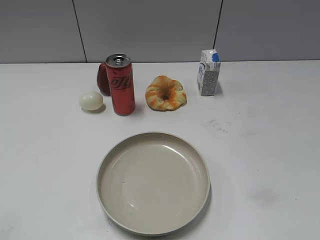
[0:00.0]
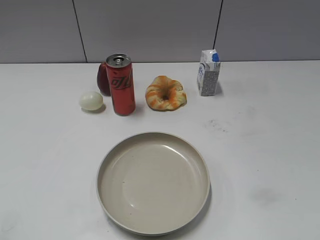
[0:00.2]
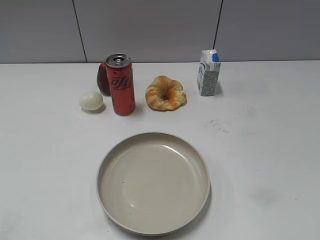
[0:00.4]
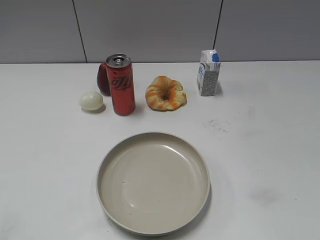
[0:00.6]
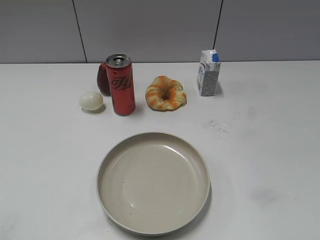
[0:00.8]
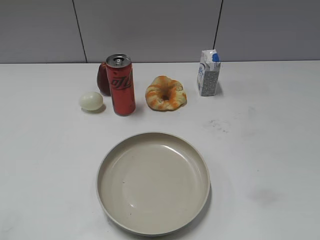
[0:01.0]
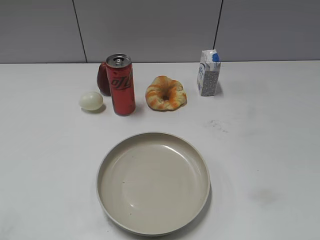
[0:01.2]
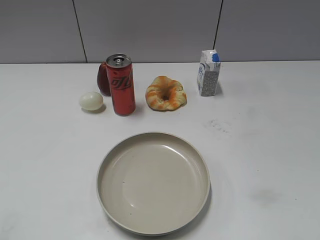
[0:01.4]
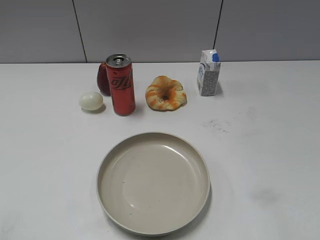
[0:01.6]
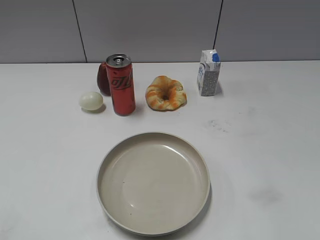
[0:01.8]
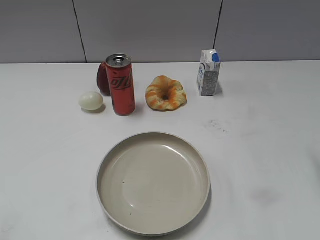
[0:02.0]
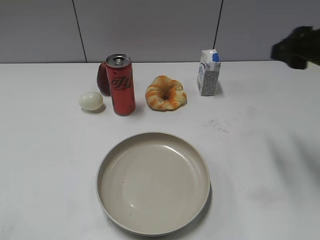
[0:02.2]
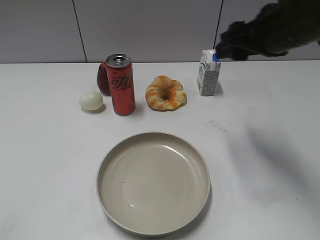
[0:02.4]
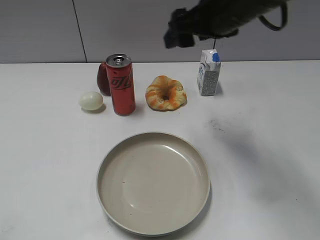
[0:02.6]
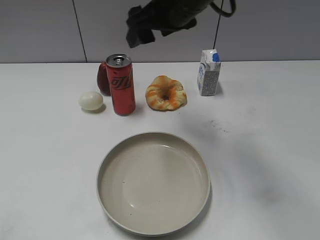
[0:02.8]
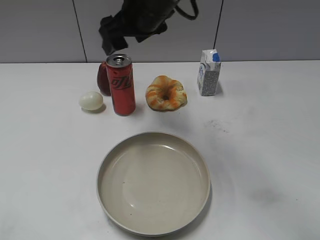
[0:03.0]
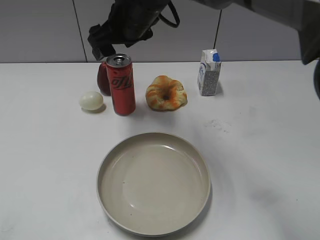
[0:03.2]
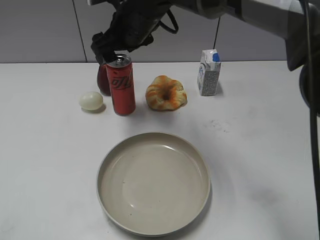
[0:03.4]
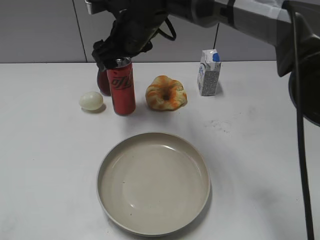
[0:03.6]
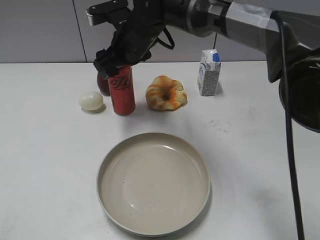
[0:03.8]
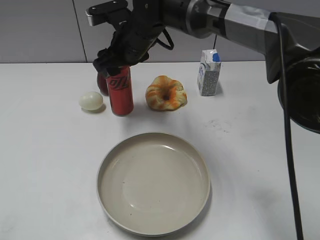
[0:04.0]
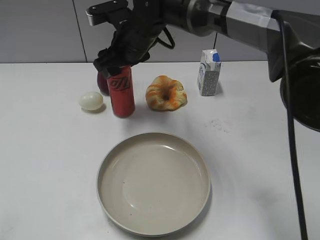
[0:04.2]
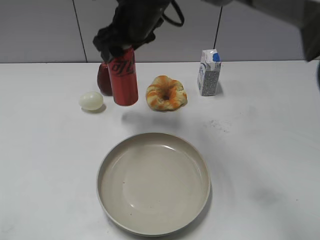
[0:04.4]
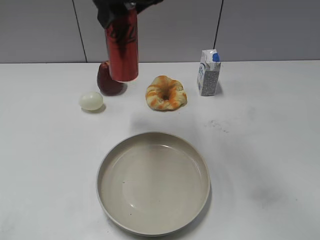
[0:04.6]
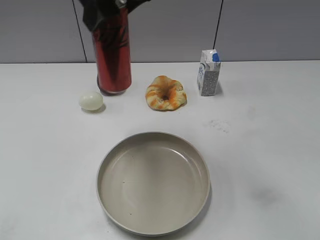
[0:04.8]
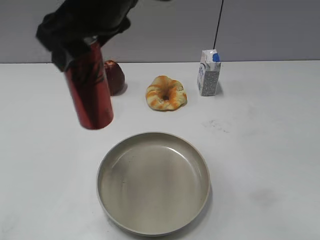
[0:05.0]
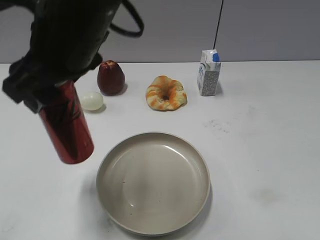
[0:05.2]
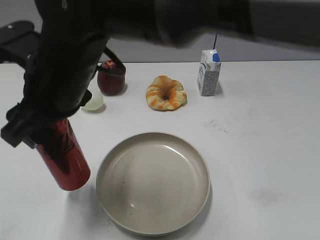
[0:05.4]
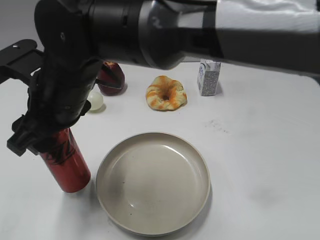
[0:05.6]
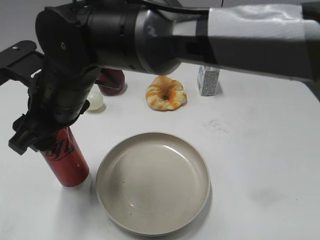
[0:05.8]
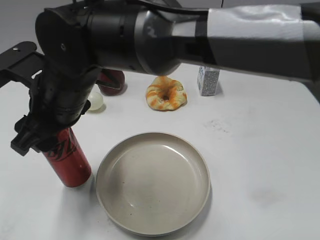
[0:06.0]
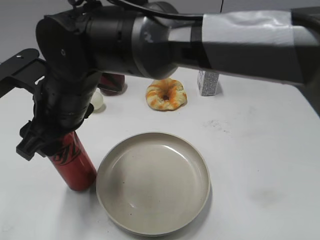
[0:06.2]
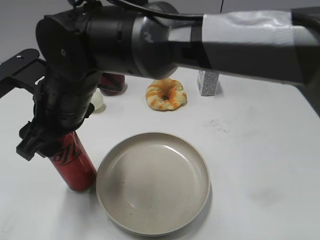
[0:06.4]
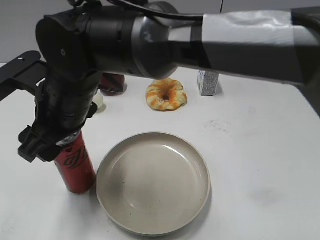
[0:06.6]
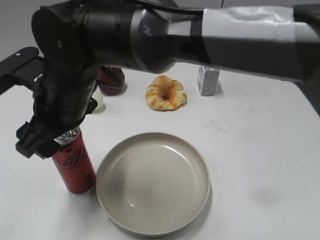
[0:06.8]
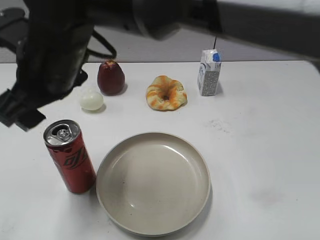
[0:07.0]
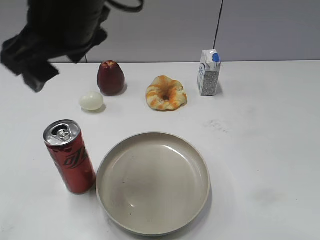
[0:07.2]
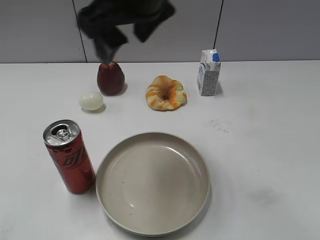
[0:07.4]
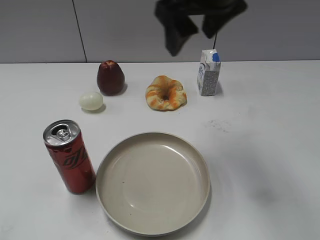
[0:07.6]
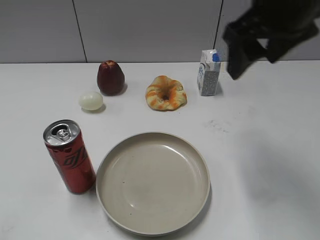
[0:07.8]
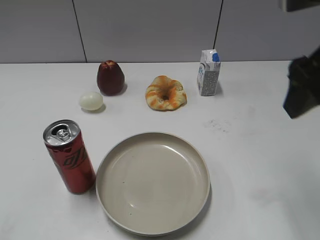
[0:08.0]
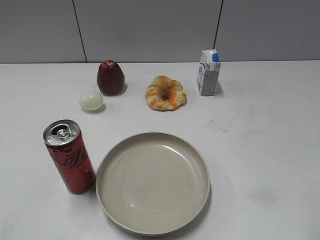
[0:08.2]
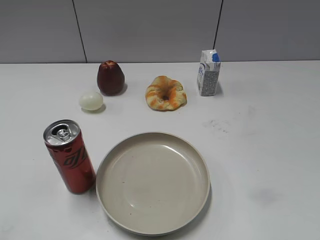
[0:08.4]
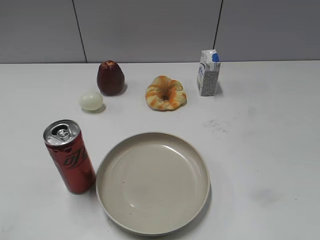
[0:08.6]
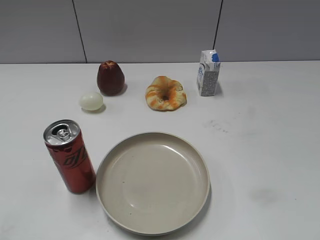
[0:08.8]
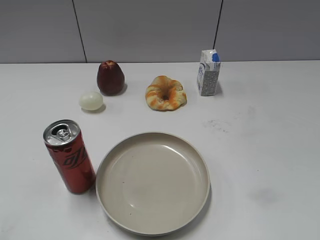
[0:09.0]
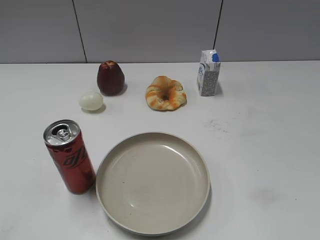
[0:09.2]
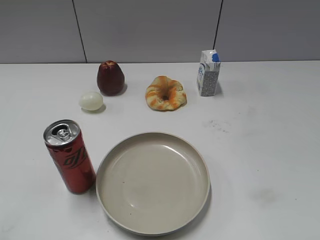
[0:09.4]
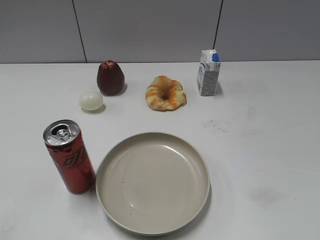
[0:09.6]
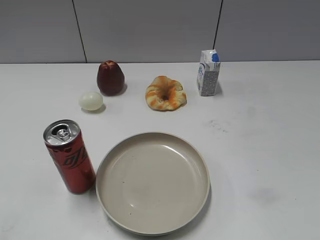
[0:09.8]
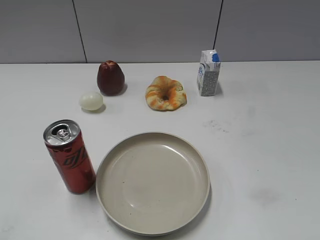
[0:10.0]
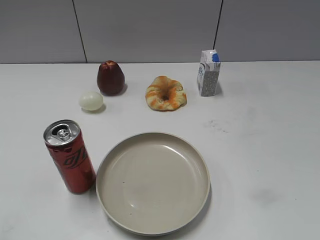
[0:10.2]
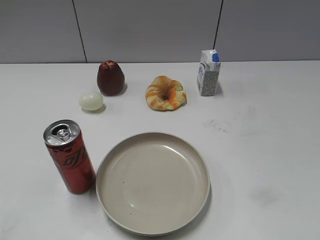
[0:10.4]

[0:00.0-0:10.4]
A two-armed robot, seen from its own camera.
Step, 0:01.2 to 0:04.0: Grasp the cola with right gripper.
Step, 0:04.4 to 0:07.0: Place the cola on the table with right gripper.
0:01.4 to 0:03.0: The right gripper moves forward and to the left, some 50 cm, and opens up.
0:03.0 to 0:04.4: The right gripper goes downward and returns, approximately 10 cm each way, and closes.
0:04.4 to 0:06.0: The right gripper moves backward and to the left, some 15 cm.
0:06.0 to 0:07.4: The right gripper is displaced upward and to the right by roughly 15 cm, and opens up.
0:07.4 to 0:09.0: The right gripper travels to the right and backward by approximately 40 cm.
